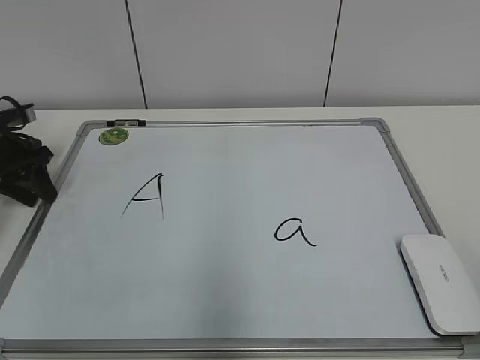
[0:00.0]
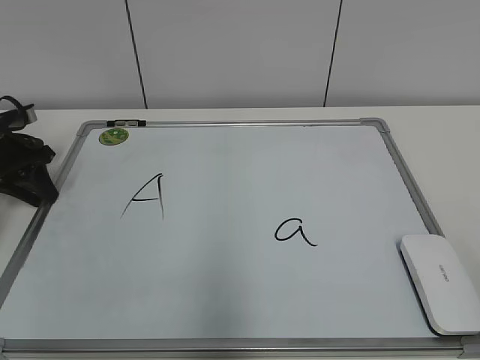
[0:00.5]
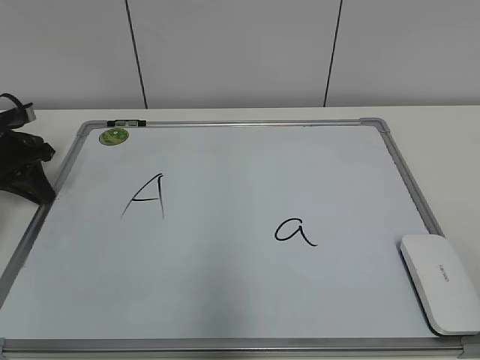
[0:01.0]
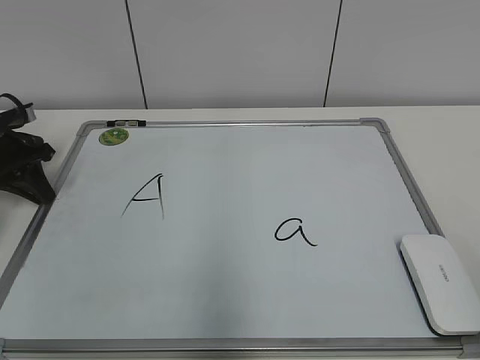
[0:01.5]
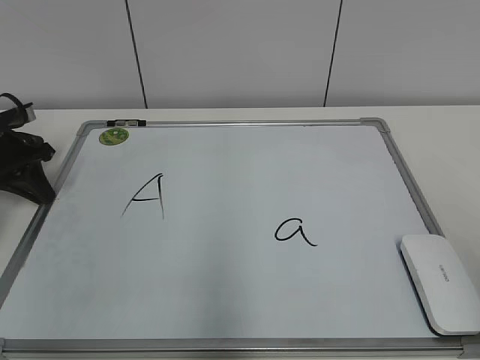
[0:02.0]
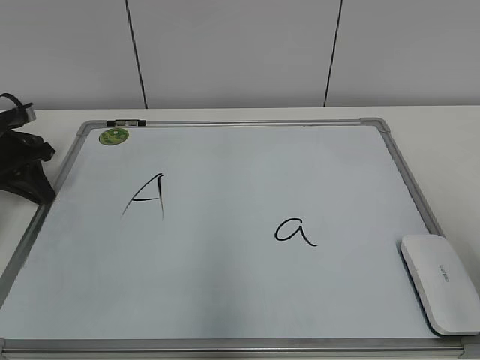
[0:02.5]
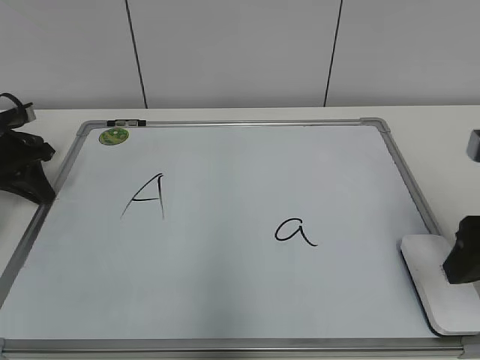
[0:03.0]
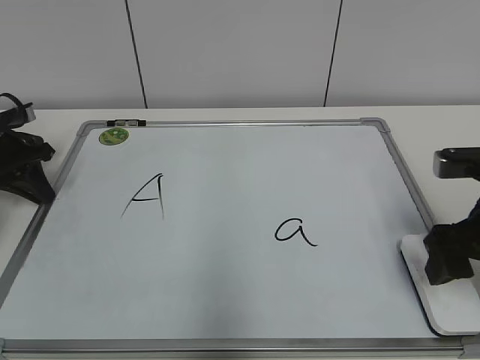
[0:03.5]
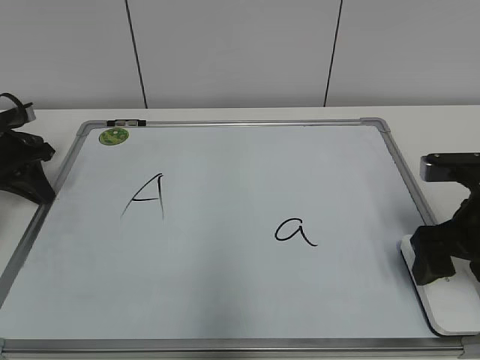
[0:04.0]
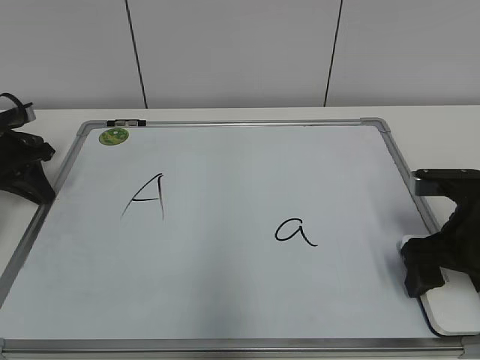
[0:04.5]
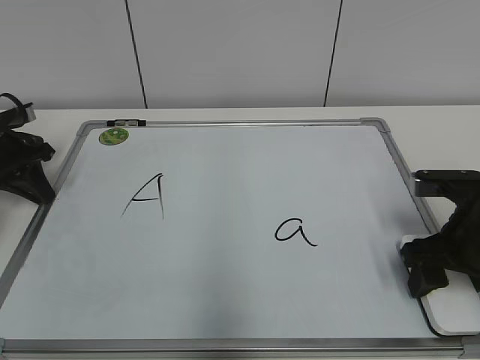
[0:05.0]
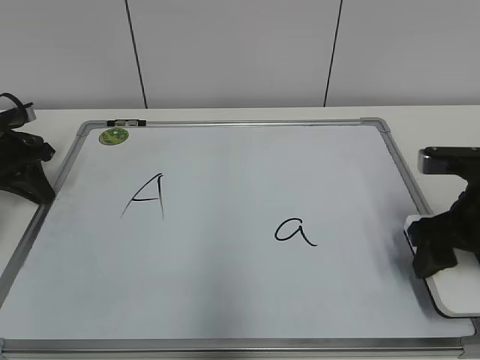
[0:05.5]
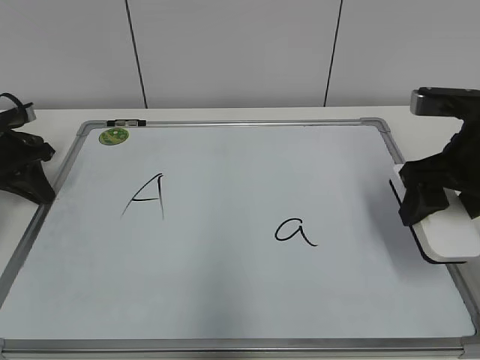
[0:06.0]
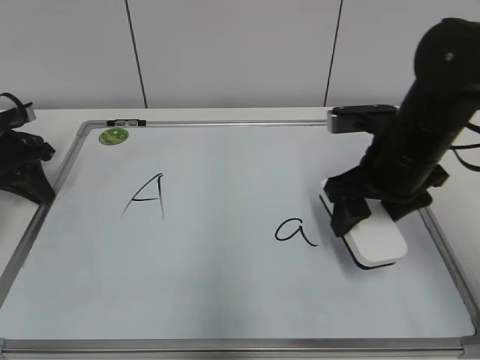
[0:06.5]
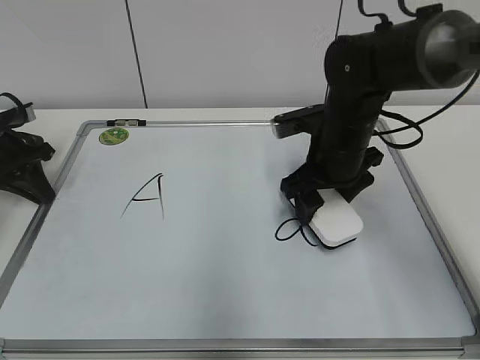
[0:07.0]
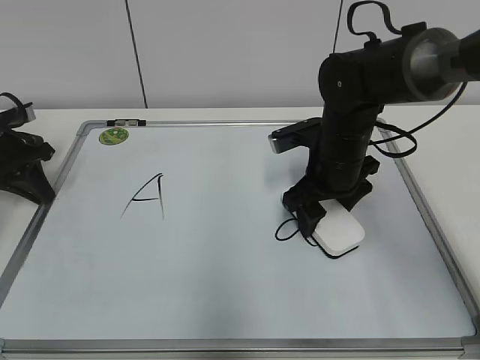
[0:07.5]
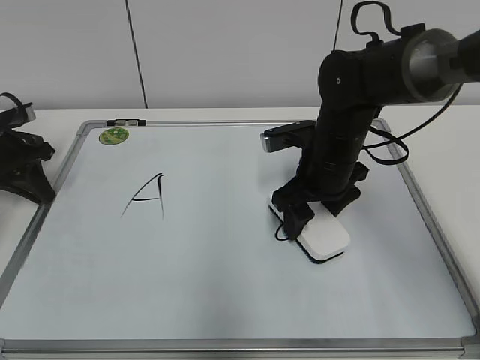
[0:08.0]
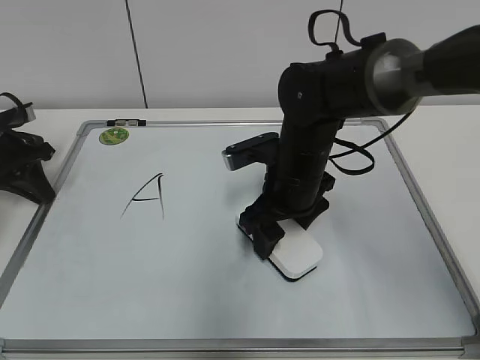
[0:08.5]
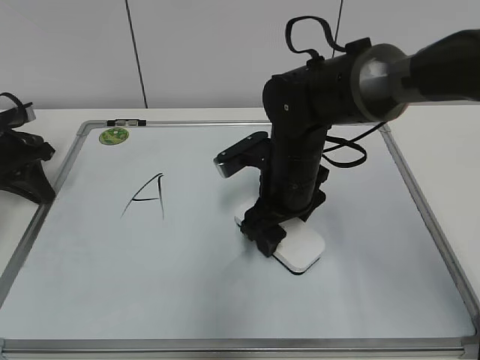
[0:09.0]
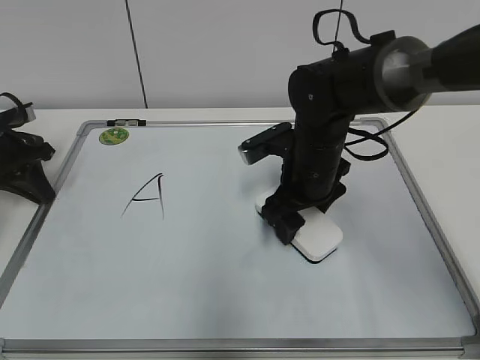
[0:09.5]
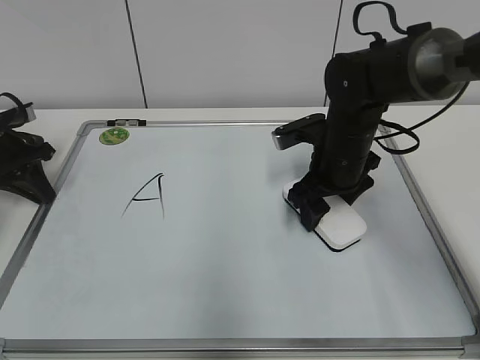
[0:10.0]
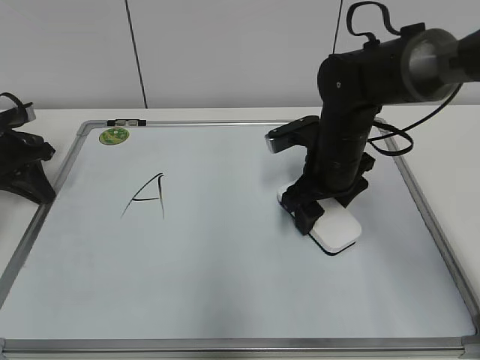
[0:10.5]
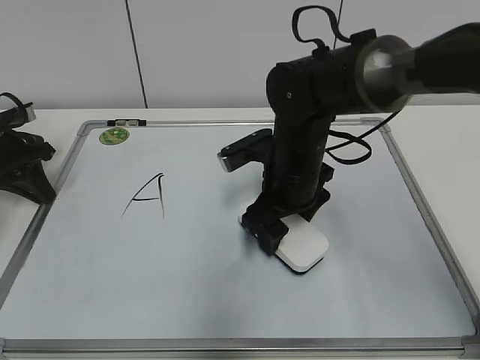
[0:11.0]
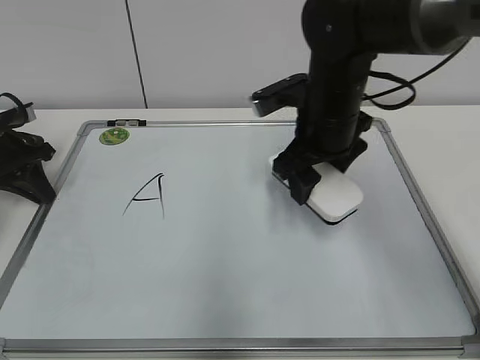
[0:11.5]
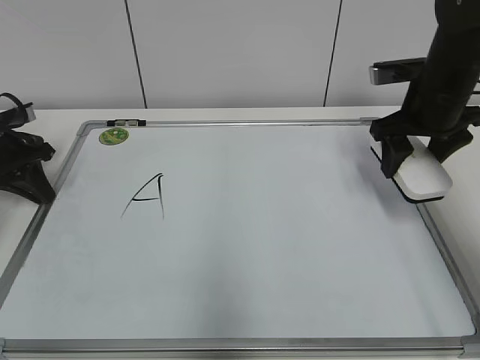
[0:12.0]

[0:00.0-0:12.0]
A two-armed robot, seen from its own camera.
Task of the whole recording: pick up the eraser on the blackboard and erase the letter "a".
Step, 0:01.0 to 0:05.0: Grab the eraser with your right hand.
Step, 0:05.5 to 0:10.5: Erase the letter a with your right hand.
0:02.0 to 0:04.0: The right gripper is displaced forward and downward by roughly 25 cm, and opens.
0:04.0 to 0:06.0: The right gripper shifts some 5 cm upward, and closes its fingers.
0:06.0 to 0:08.0: The right gripper moves to the left, forward and downward, approximately 15 cm.
0:10.0 to 0:12.0: The right gripper shifts about 15 cm to the right and upward.

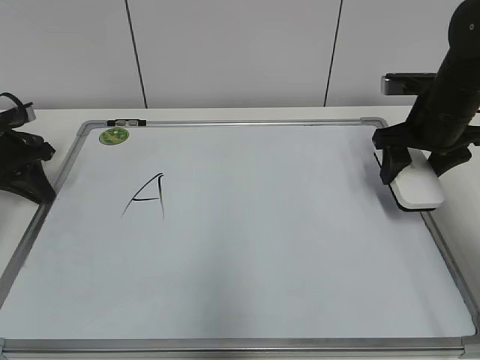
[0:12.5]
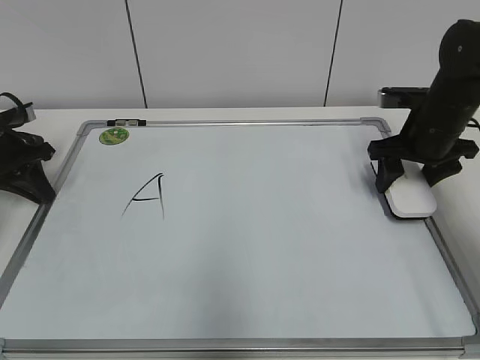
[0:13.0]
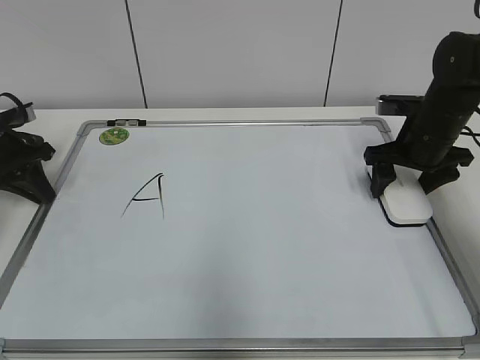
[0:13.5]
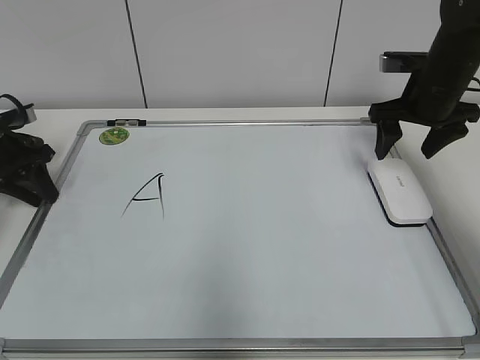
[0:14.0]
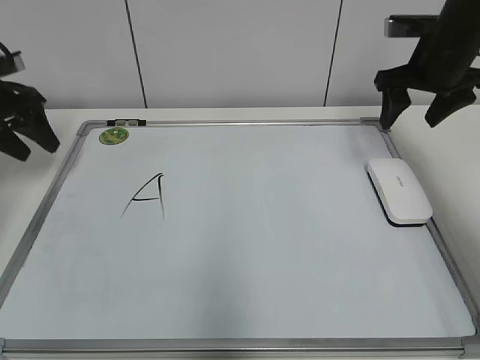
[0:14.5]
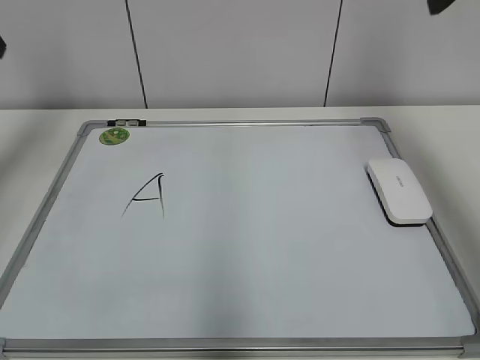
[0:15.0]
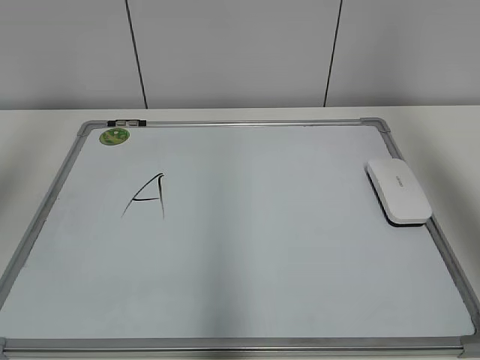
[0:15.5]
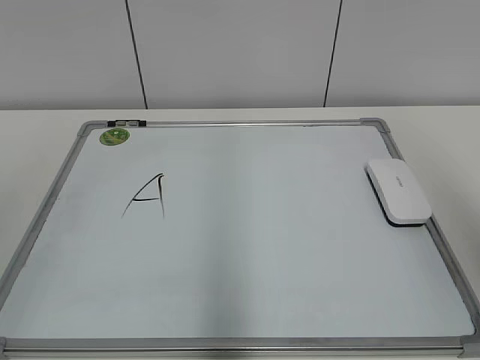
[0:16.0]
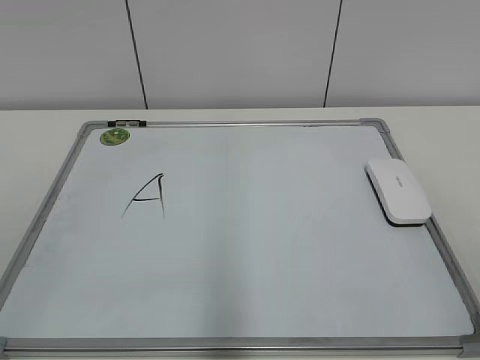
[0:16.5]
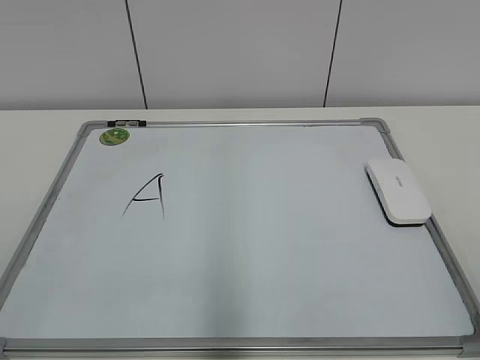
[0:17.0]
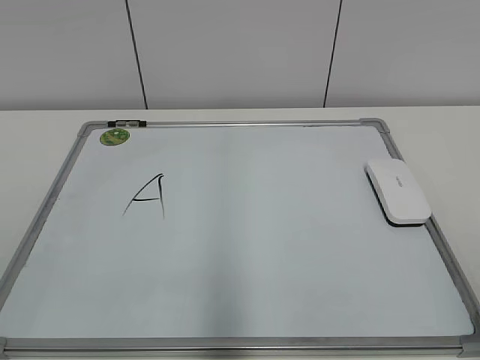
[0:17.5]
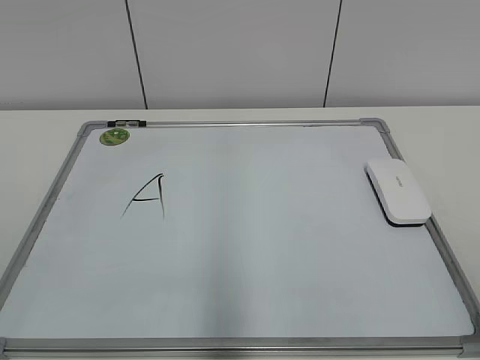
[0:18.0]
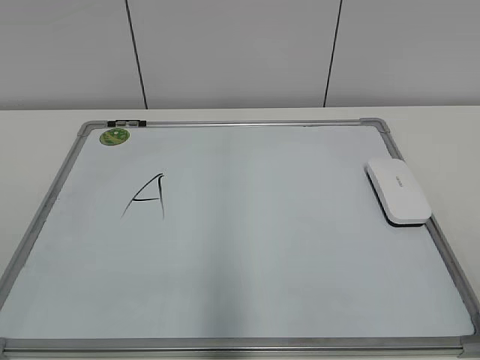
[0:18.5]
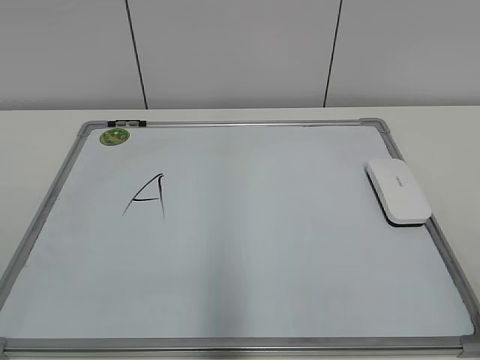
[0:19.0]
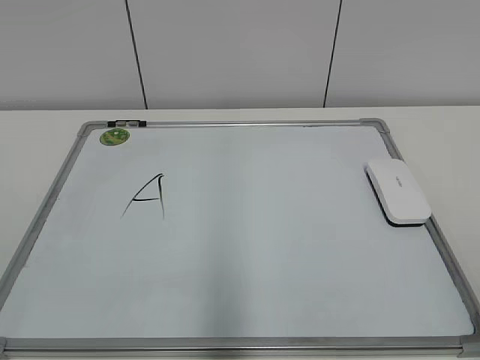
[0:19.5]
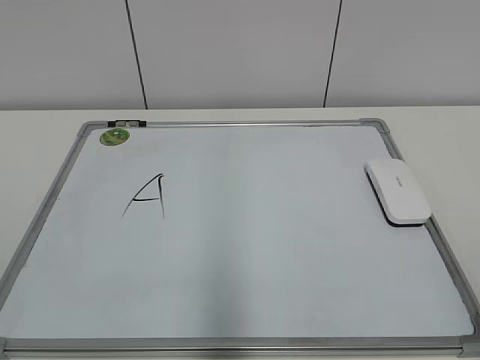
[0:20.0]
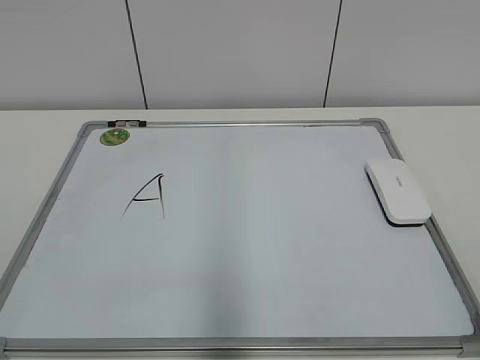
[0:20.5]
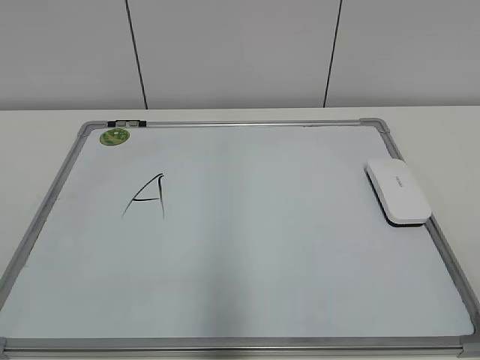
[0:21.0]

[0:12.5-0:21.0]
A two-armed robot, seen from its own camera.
Task of the whole recording: pick up the eraser on the blackboard and erase the letter "a".
0:12.5 to 0:14.5: The two grippers go about 5 cm upward. The left gripper opens. Meanwhile the right gripper opens up.
0:14.5 to 0:16.5: The grippers both shift backward by roughly 40 cm.
